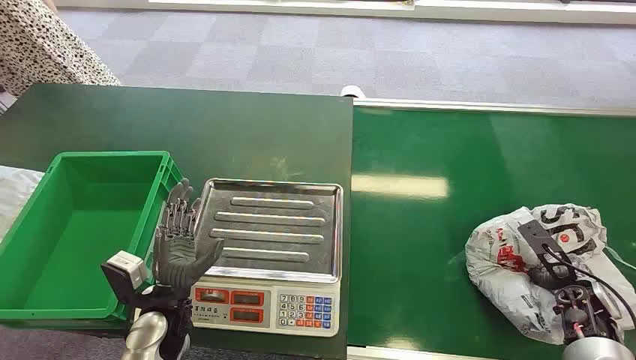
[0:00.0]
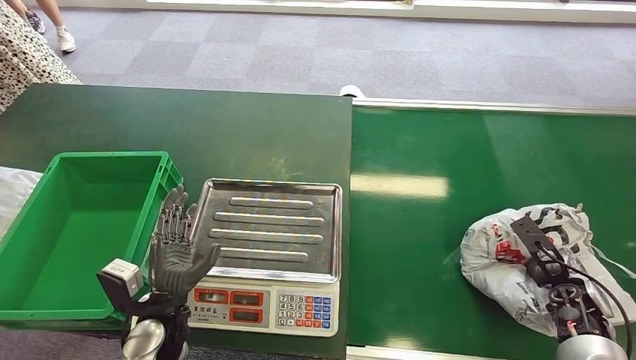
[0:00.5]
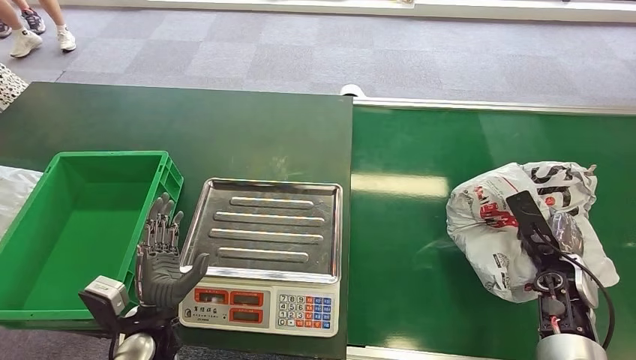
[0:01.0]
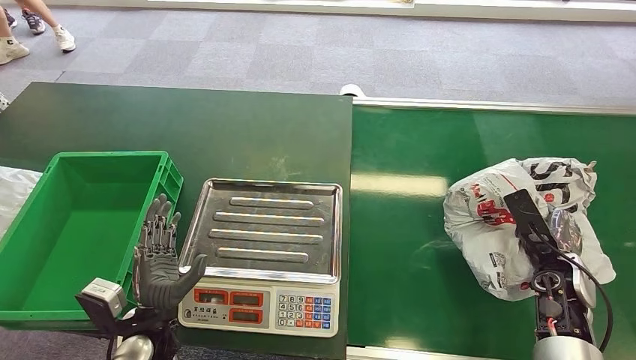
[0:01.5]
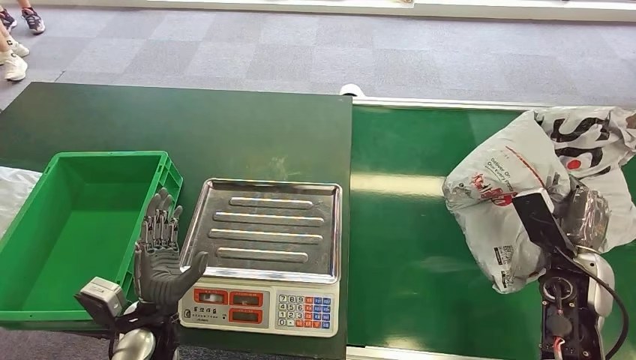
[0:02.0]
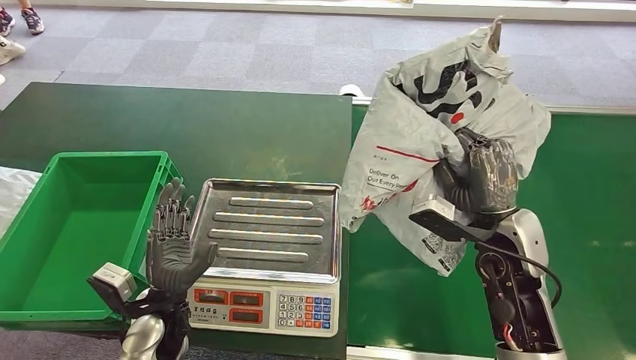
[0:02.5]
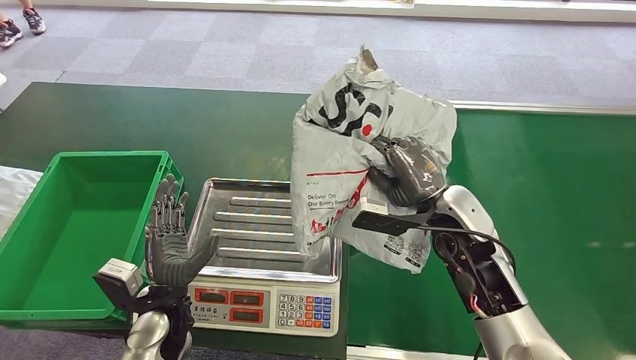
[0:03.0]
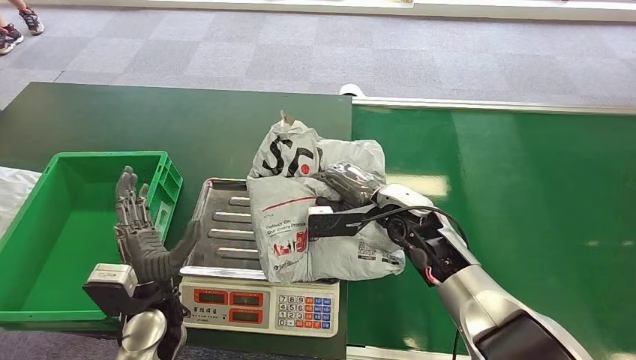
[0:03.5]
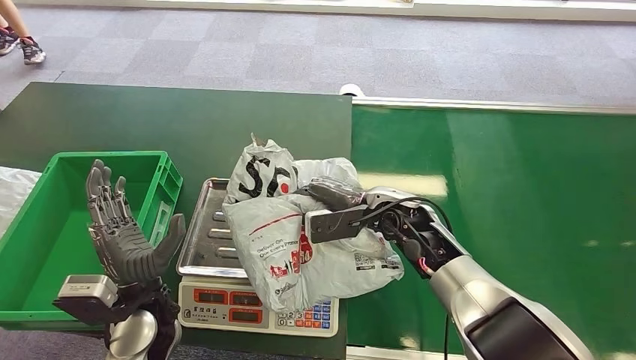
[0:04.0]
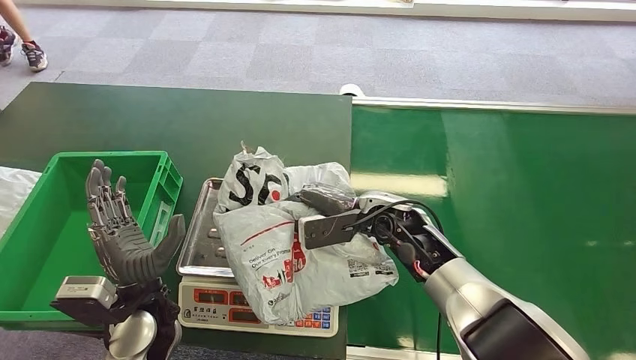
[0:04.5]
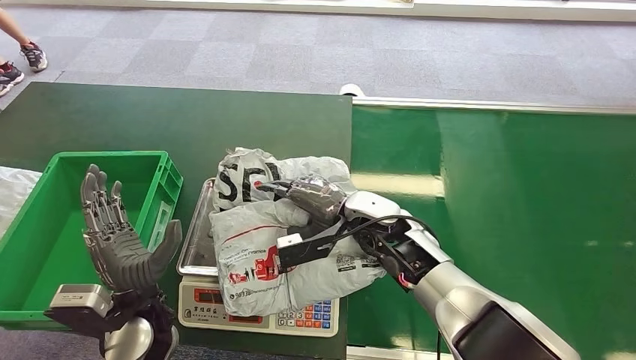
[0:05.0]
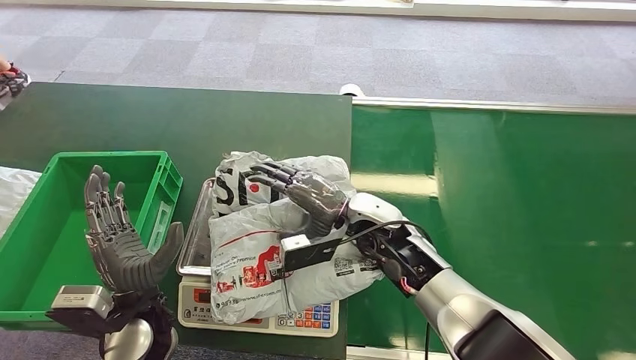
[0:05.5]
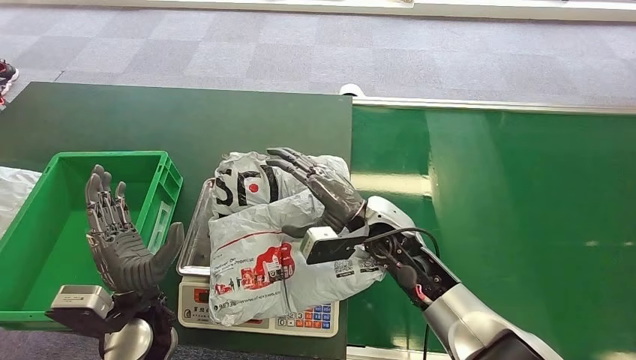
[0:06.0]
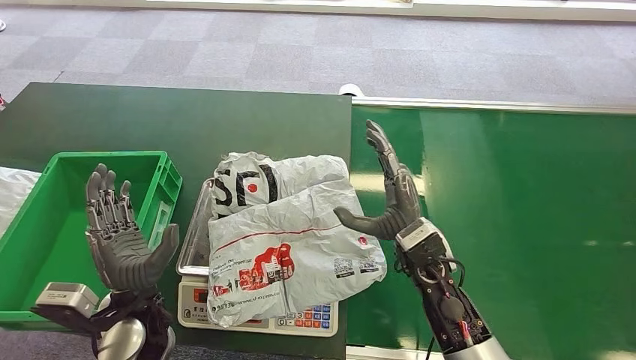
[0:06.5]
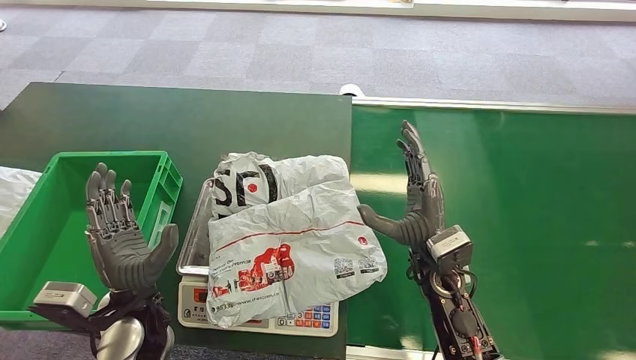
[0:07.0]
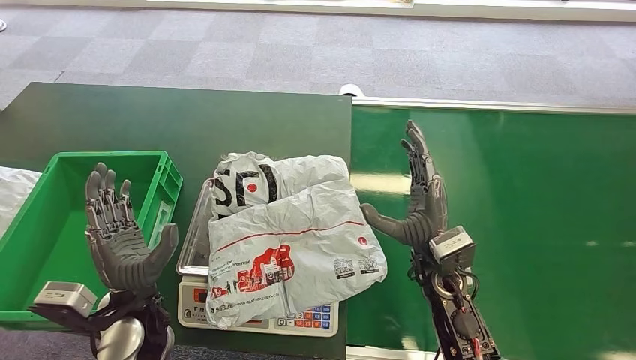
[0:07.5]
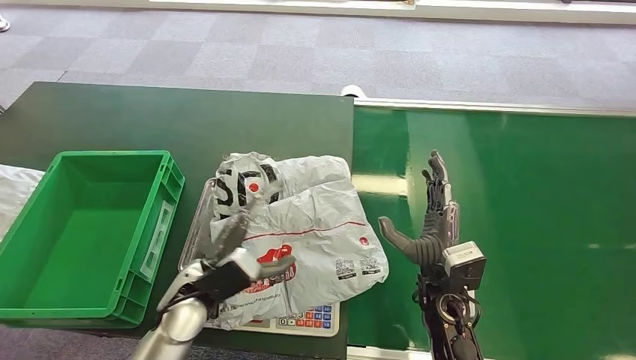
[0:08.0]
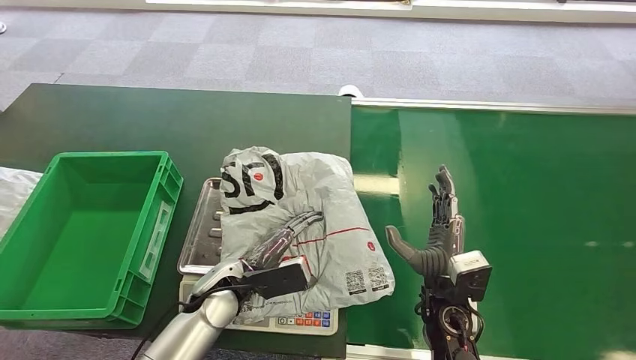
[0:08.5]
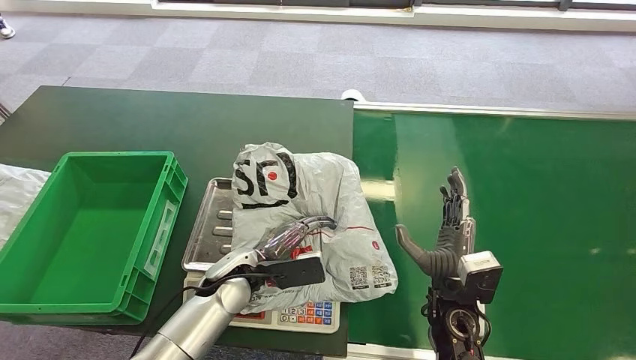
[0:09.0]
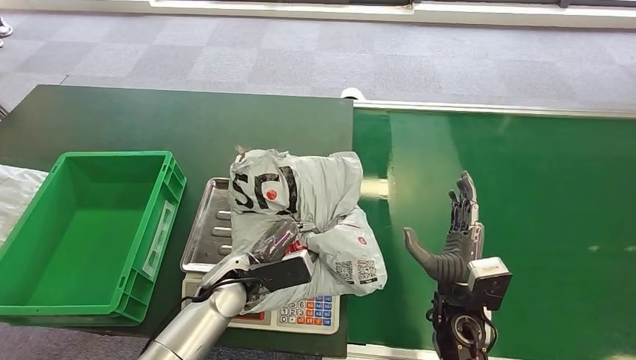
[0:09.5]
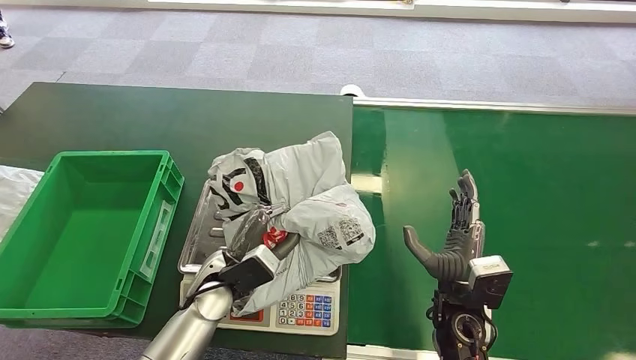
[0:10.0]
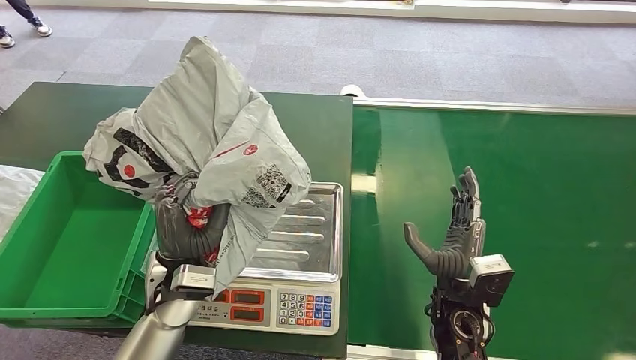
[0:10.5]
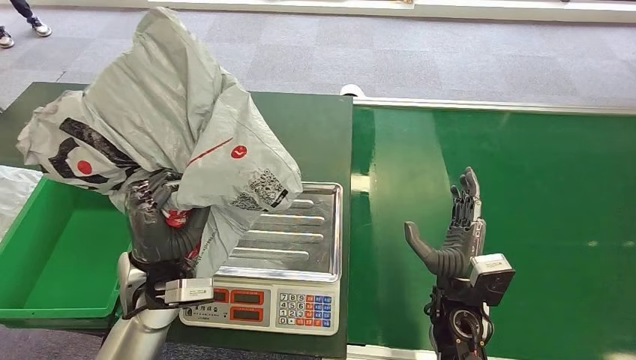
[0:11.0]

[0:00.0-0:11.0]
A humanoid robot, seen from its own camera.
Step, 0:00.0 to 0:02.0: Pick up the package from the conveyor belt.
Step, 0:03.0 to 0:06.0: Place the package onto the inbound machine.
Step, 0:08.5 to 0:10.5: Pick up the package from the inbound machine.
0:05.5 to 0:07.5: The right hand shifts some 10 cm backward and to the right.

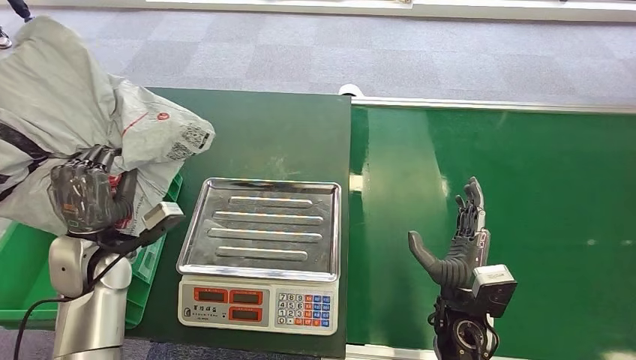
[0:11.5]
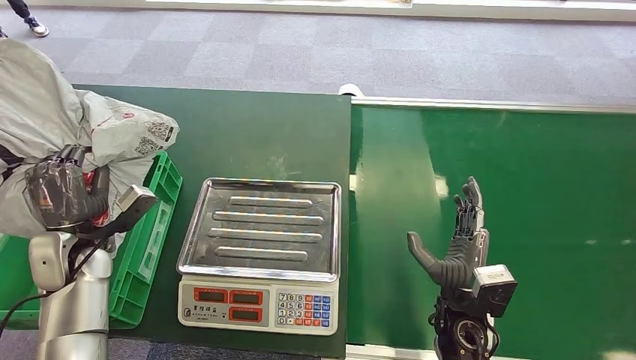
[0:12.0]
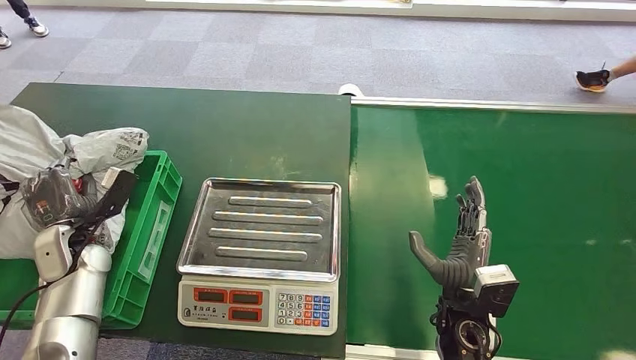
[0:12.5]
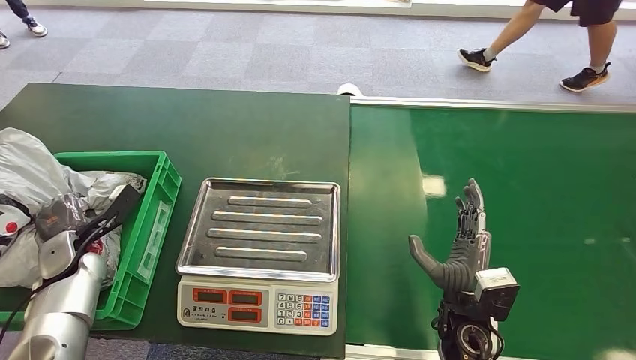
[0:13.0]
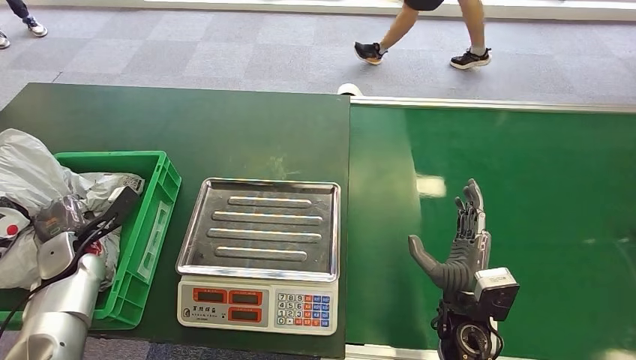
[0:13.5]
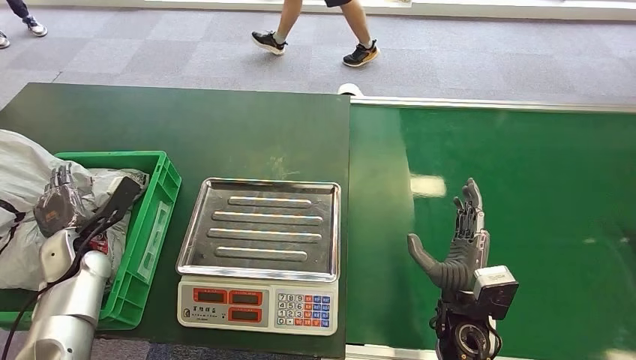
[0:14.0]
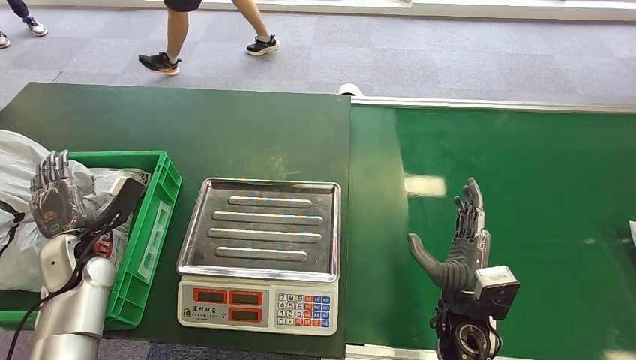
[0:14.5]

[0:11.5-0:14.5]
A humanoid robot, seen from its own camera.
Step, 0:11.5 to 0:14.5: Place the package into the parcel locker.
